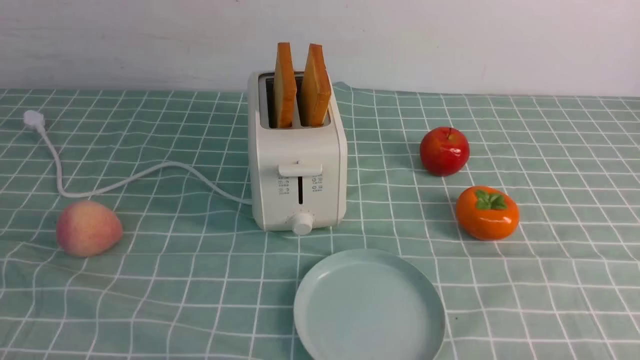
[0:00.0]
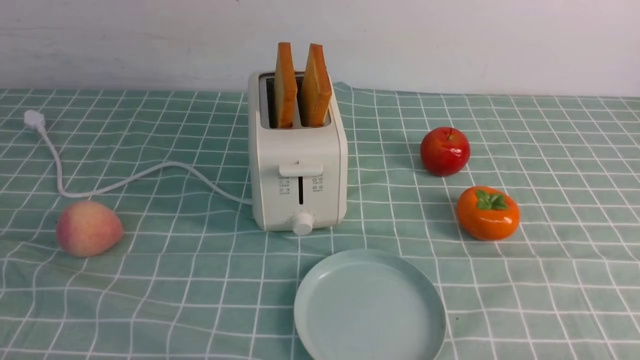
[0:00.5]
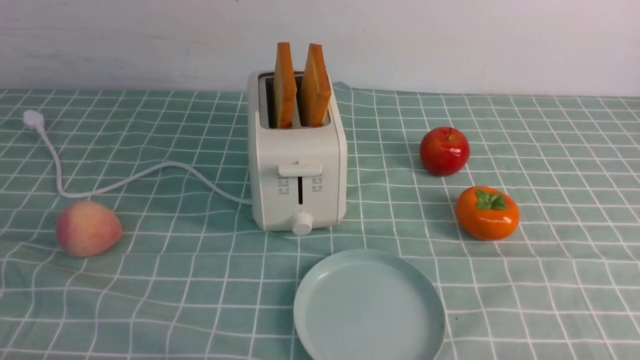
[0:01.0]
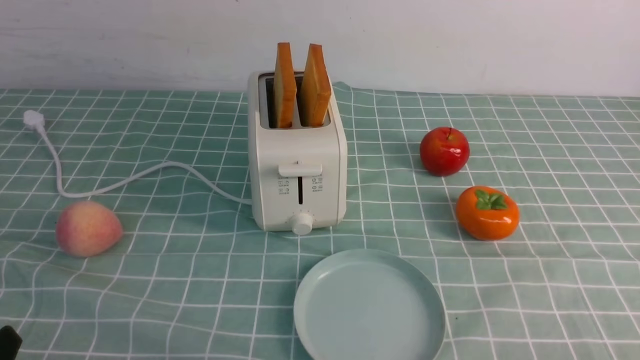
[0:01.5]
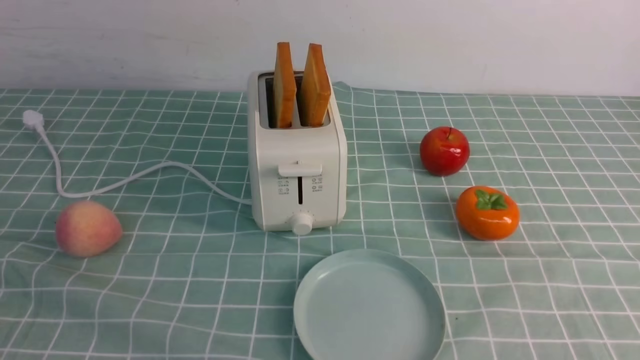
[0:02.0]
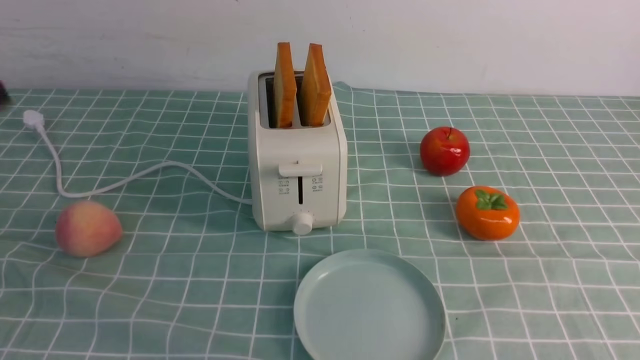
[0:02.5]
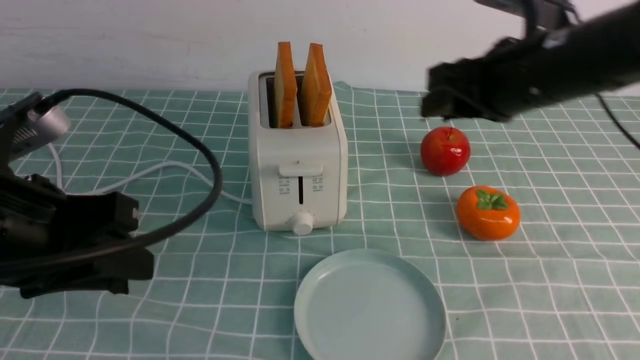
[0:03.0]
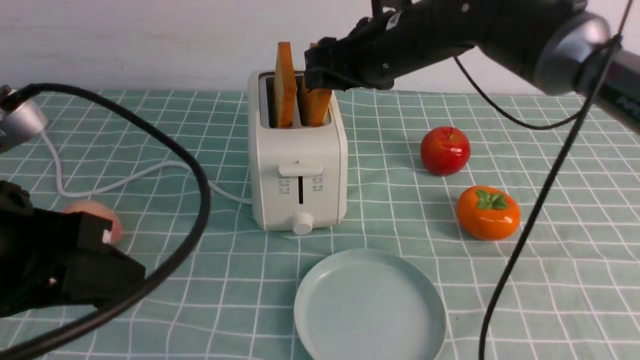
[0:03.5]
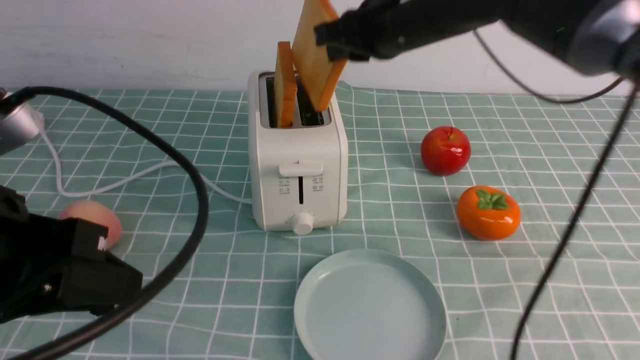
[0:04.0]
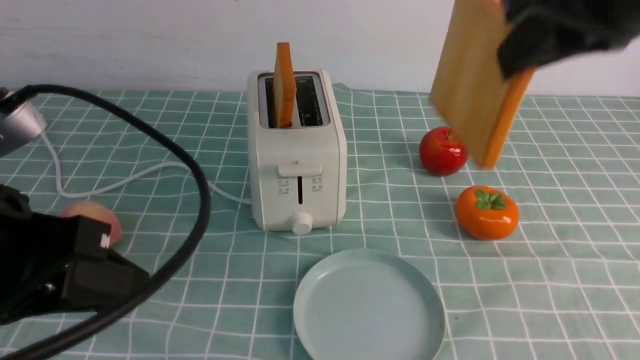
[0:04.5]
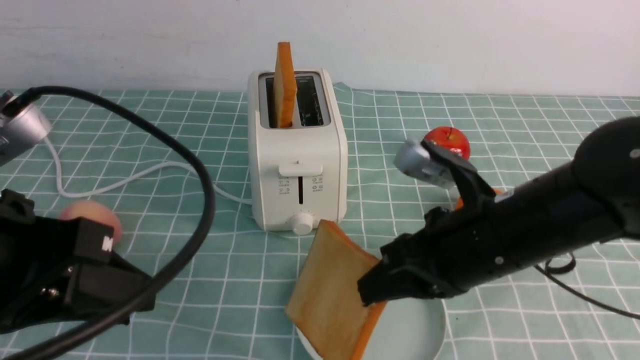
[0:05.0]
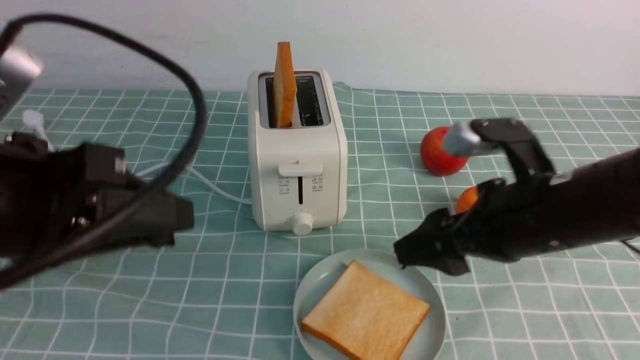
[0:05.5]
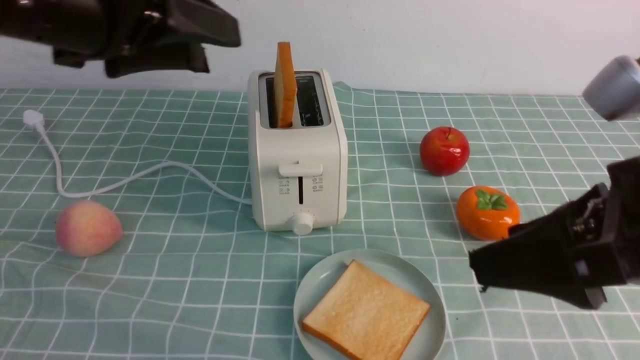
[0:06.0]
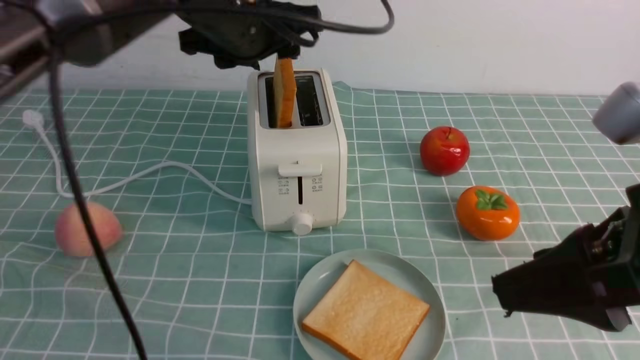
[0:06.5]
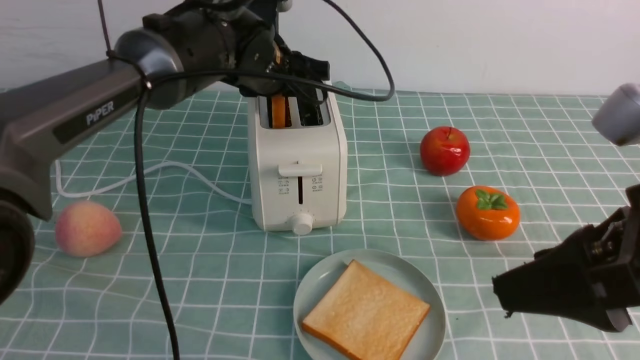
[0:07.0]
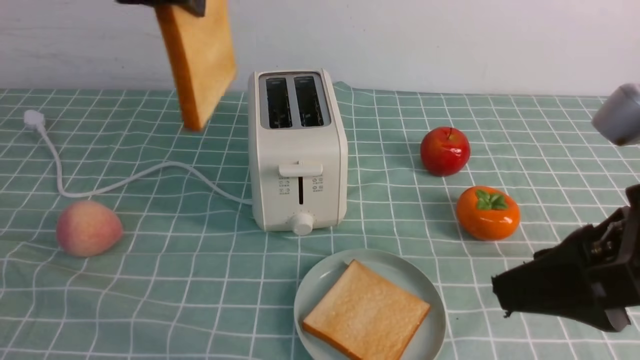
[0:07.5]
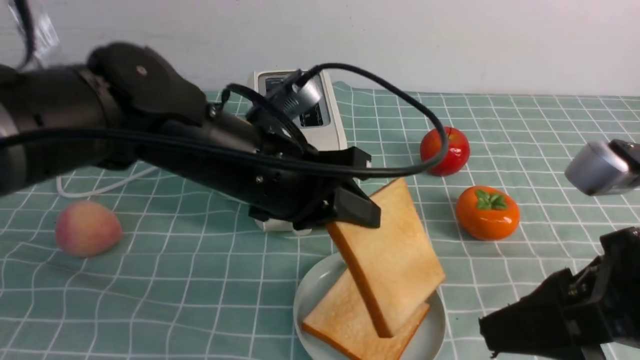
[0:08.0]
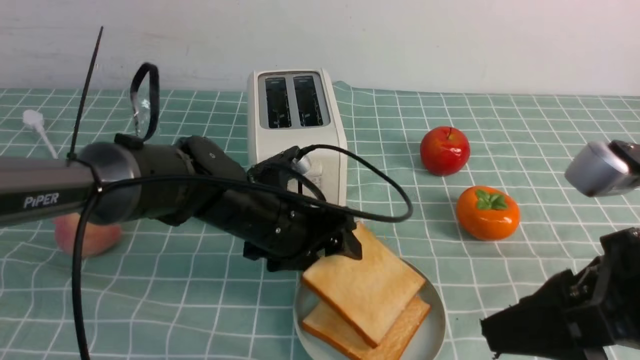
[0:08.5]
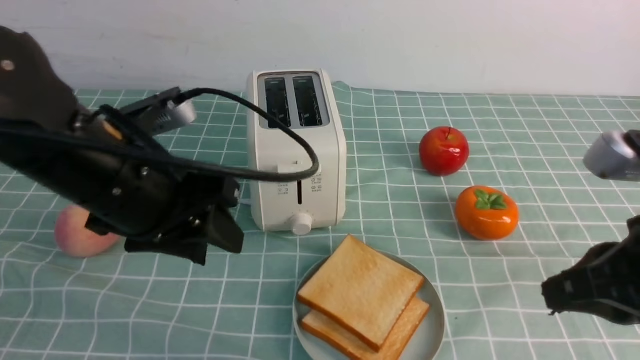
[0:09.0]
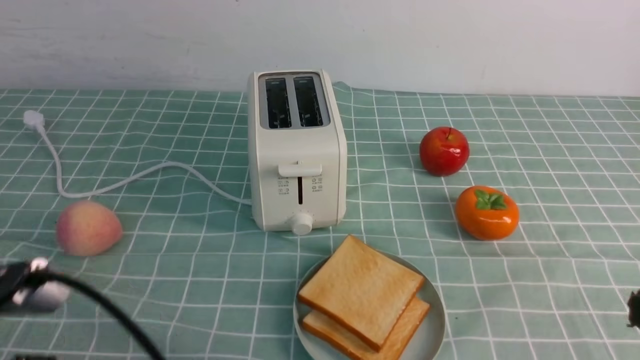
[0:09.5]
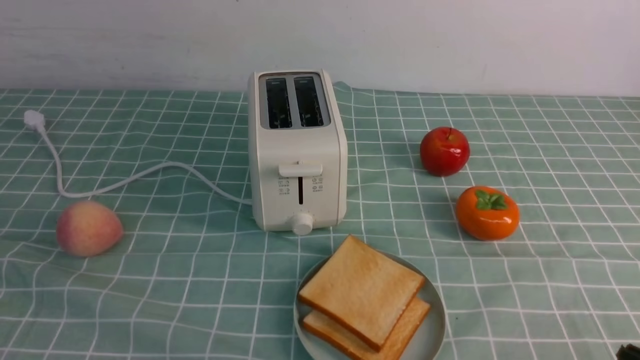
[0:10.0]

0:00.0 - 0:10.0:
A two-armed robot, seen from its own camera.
Task of the whole recording: take toasted bread from bread machine on blue coffee table place on plate.
Step, 0:00.0 - 0:04.0: use the right arm to take out a slice of bread.
Step, 0:04.5 - 0:05.5: use the right arm to put a slice of bread into the plate.
Step, 0:06.0 - 0:07.0: use the left arm to take out a slice of bread.
Step, 0:07.5 - 0:08.5: use the left arm to put a slice of bread into the empty plate.
0:02.0 - 0:04.0: The left gripper heads forward and to the right, covering about 15 cm; the right gripper goes roughly 40 cm forward and to the left.
0:04.0 - 0:06.0: The left gripper goes roughly 15 cm forward and upward. The right gripper is displaced backward and to the right by roughly 25 cm, and opens its fingers.
0:06.0 - 0:08.0: The left gripper moves downward and to the right, approximately 15 cm, moves some 15 cm forward and comes back, and closes up.
0:08.0 - 0:10.0: The left gripper is displaced backward and to the left by some 30 cm, and opens, then closes again. Meanwhile the right gripper is displaced downward, backward and to the right by roughly 15 cm, and closes its fingers.

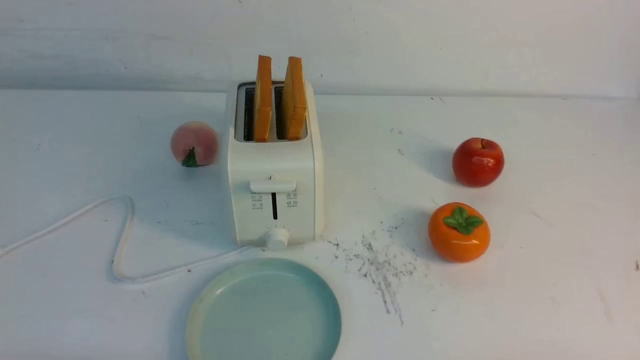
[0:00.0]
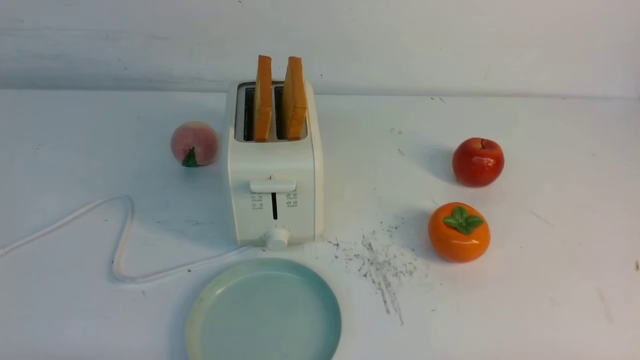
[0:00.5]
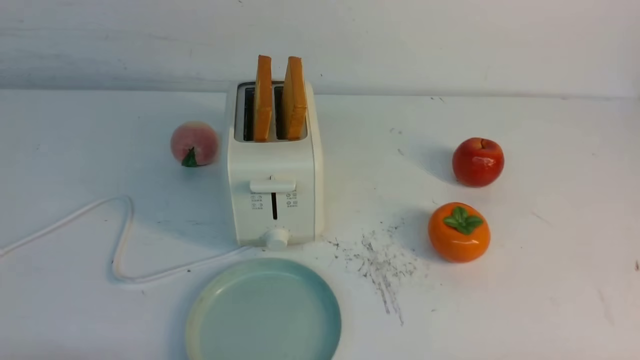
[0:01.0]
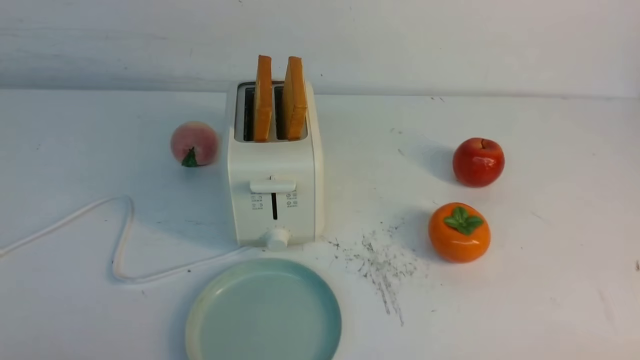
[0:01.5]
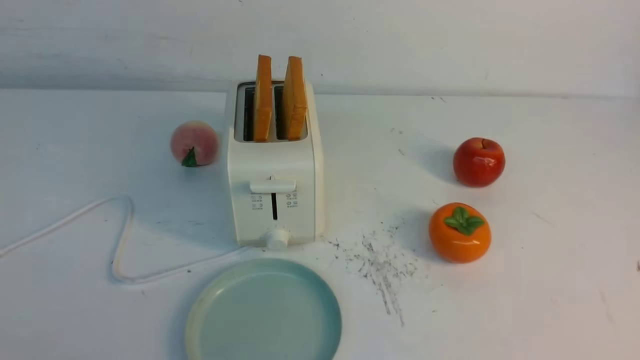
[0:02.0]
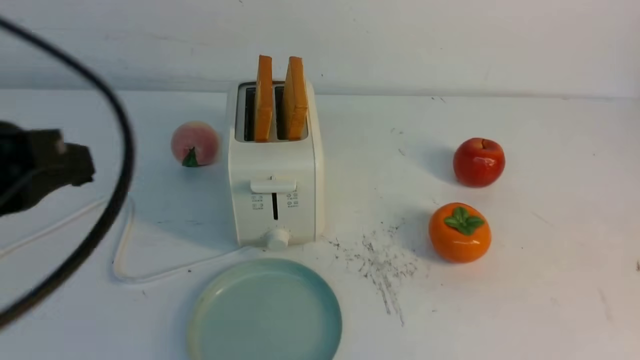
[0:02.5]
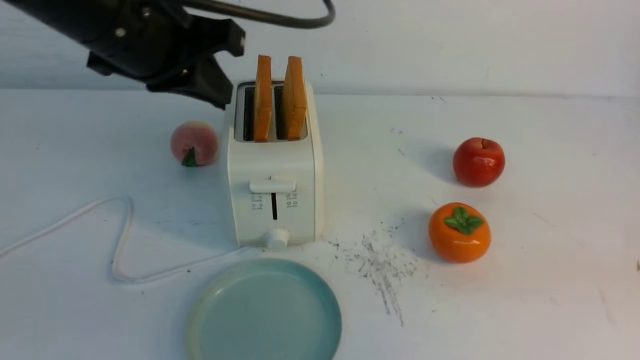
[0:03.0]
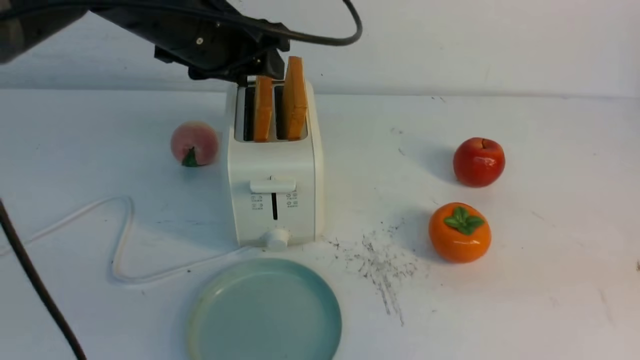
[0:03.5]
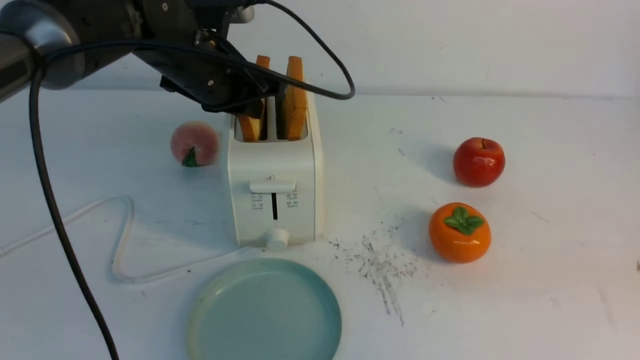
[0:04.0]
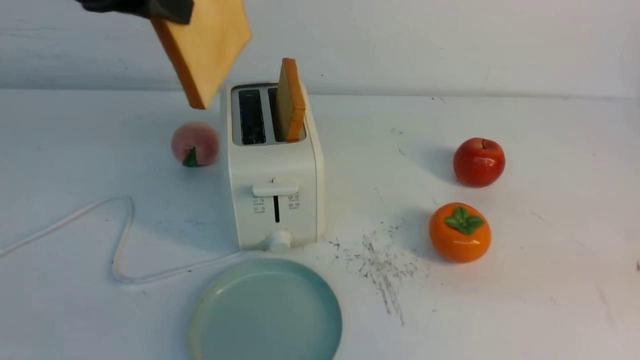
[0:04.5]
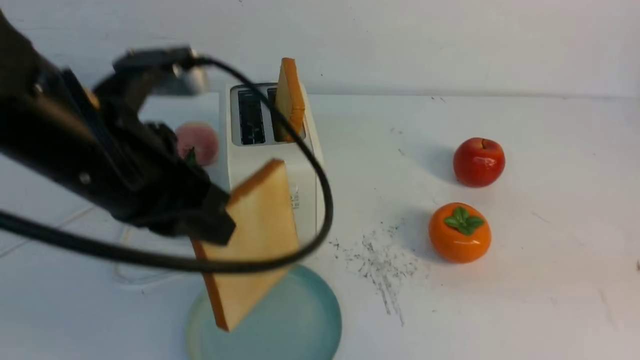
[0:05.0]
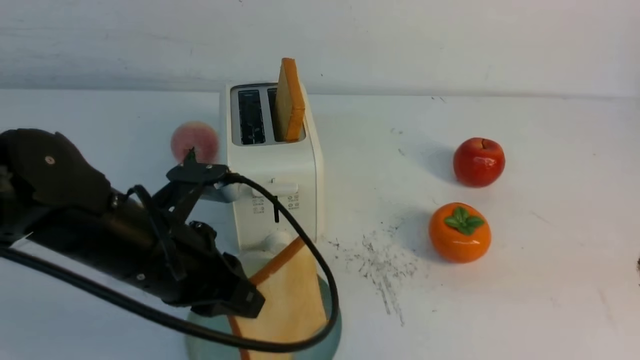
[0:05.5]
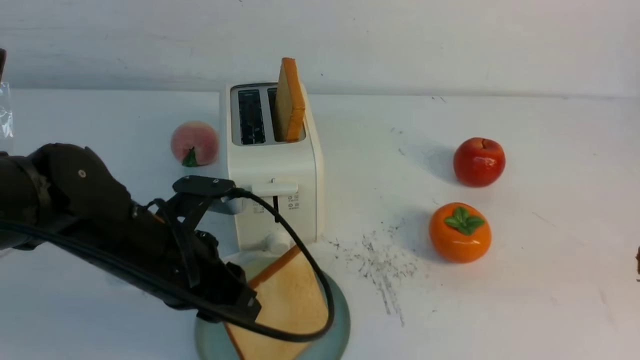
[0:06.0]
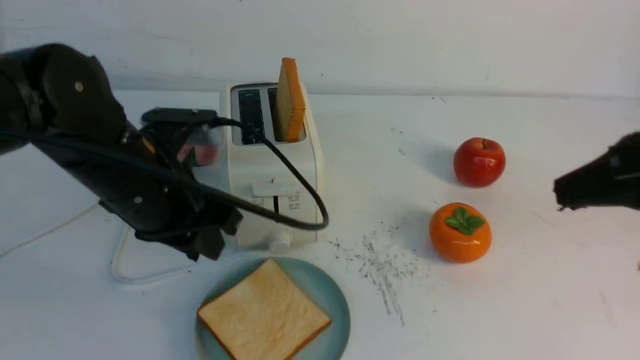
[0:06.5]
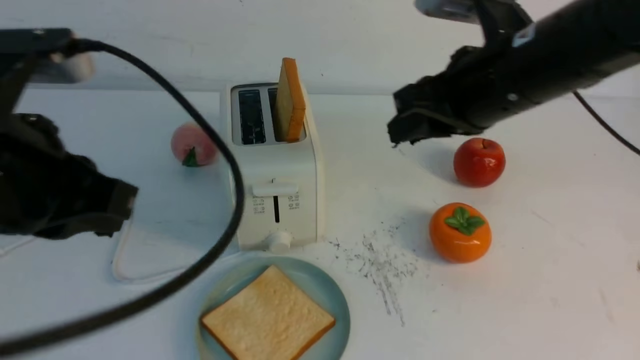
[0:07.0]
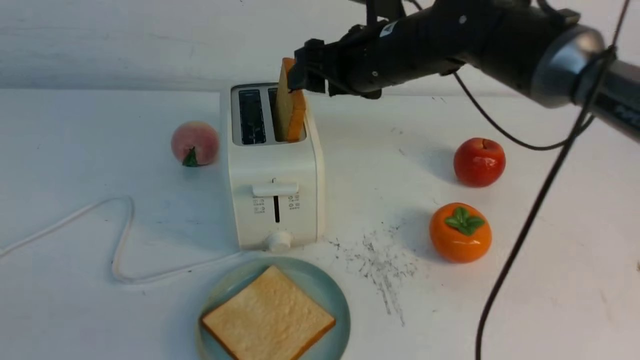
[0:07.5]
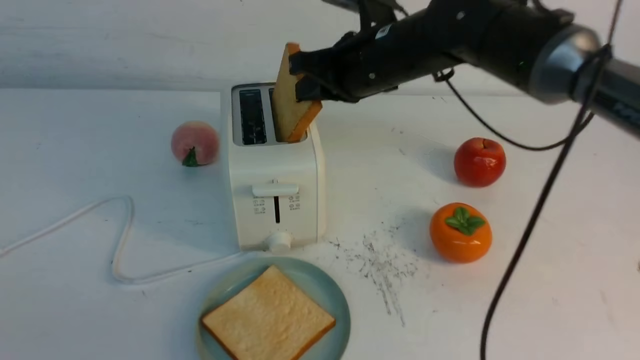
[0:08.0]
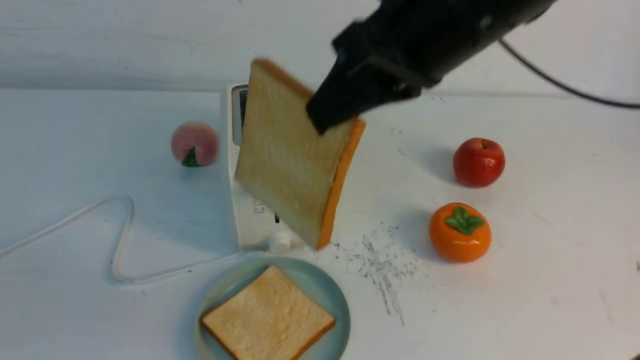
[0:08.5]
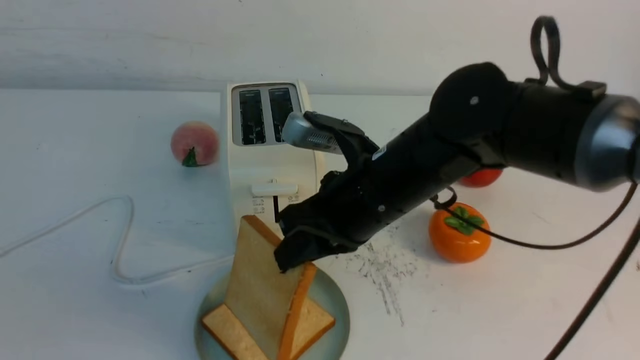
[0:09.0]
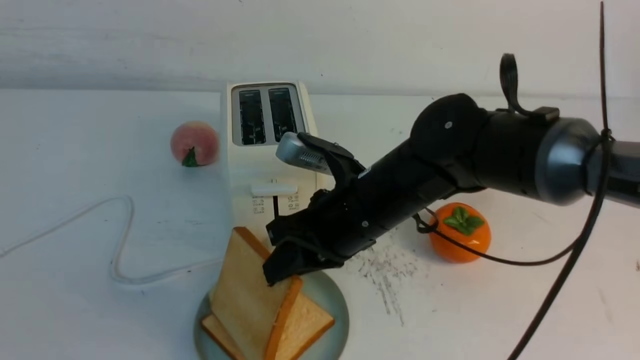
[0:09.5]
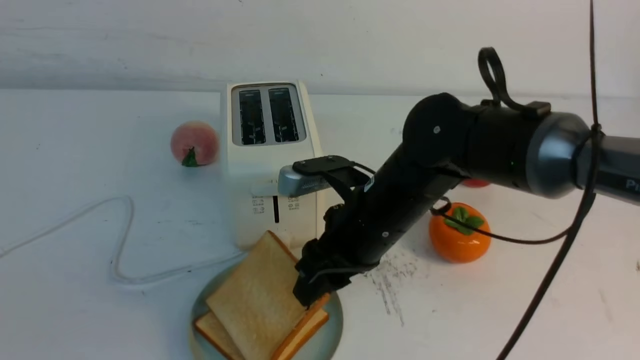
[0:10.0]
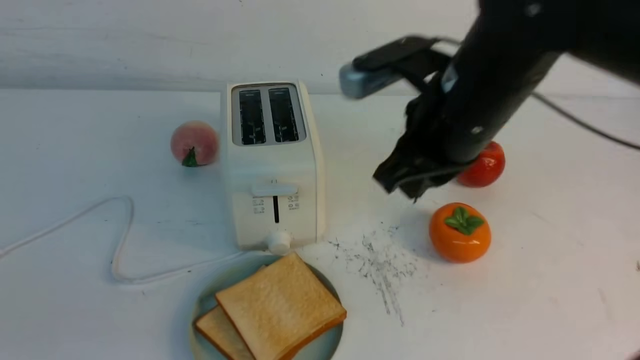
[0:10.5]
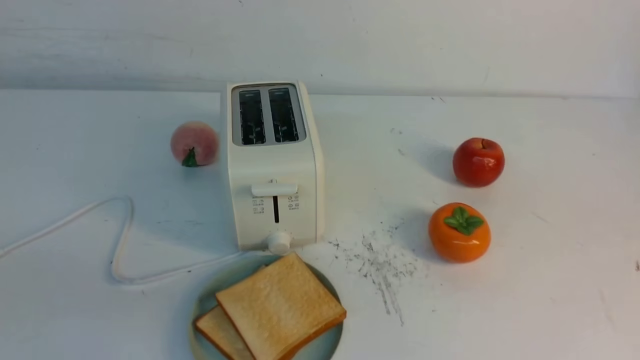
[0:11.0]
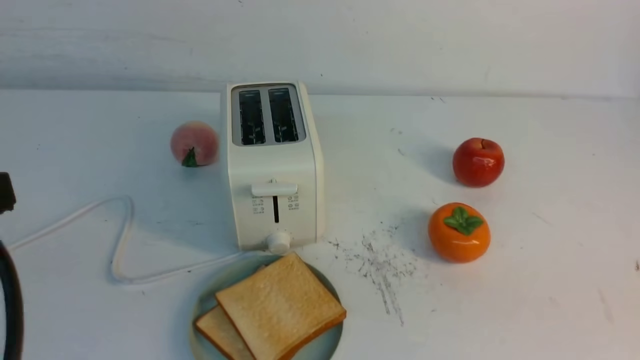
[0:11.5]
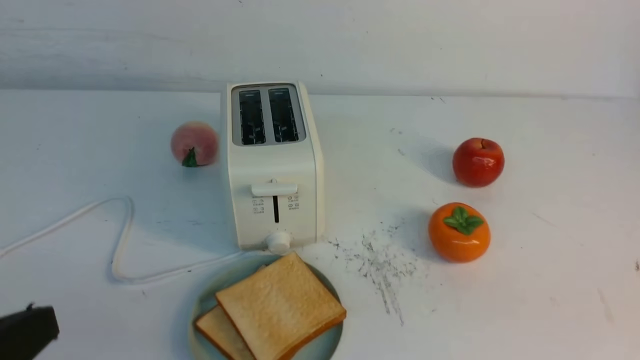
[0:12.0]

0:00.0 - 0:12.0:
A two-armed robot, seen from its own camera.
Task of the whole recording: take toasted bread from bread machine on white table place on plate.
Step, 0:00.0 - 0:04.0: use the left arm to take out a slice of bread.
Step, 0:04.5 - 0:06.5: use the left arm to put a slice of bread into the empty plate.
Step, 0:07.0 - 0:08.0: use the right arm to take out a slice of bread.
Step, 0:08.5 - 0:10.0: use the right arm to put a slice of bread into the plate.
0:02.0 - 0:04.0: The left gripper is displaced forward by about 35 cm, and opens its fingers. Meanwhile the right gripper goes about 15 cm upward and forward, and closes up.
0:04.0 - 0:06.0: The left gripper shifts approximately 20 cm backward and downward.
0:06.0 - 0:08.0: The right gripper goes approximately 35 cm forward and to the left, and opens and closes again. Meanwhile the left gripper moves backward, upward and to the left, some 30 cm, and closes up.
0:08.0 - 0:10.0: The right gripper moves downward and backward, approximately 15 cm, and opens up.
0:10.0 - 0:12.0: The right gripper moves backward and to the right, approximately 40 cm, and closes. Meanwhile the left gripper goes about 5 cm downward.
